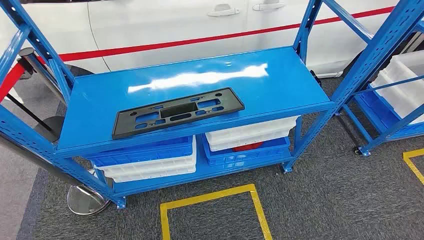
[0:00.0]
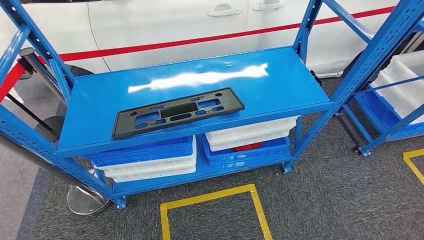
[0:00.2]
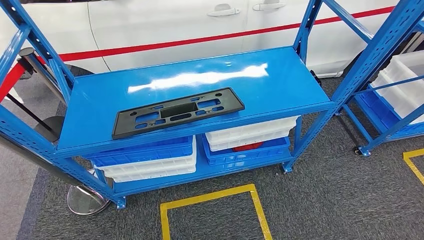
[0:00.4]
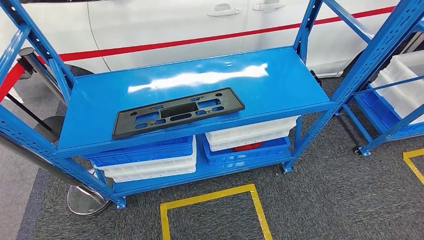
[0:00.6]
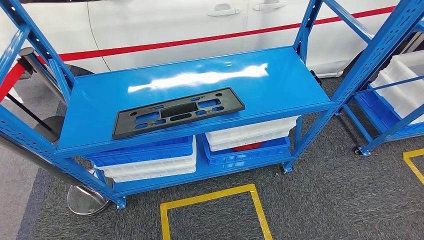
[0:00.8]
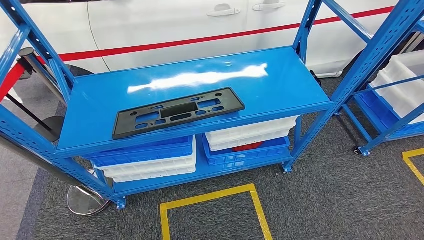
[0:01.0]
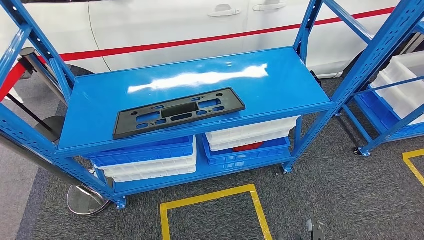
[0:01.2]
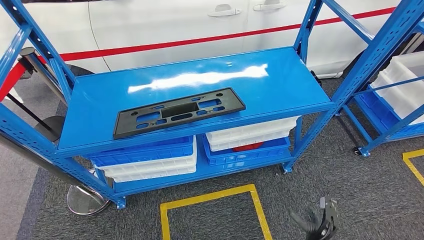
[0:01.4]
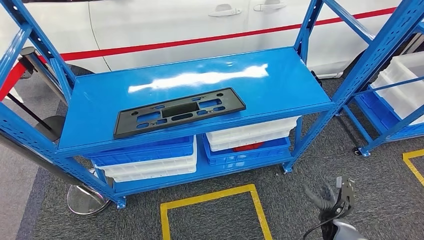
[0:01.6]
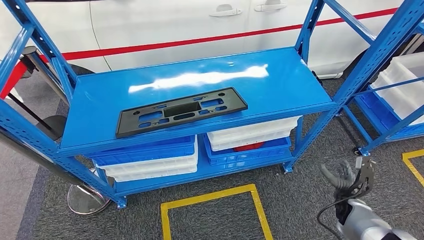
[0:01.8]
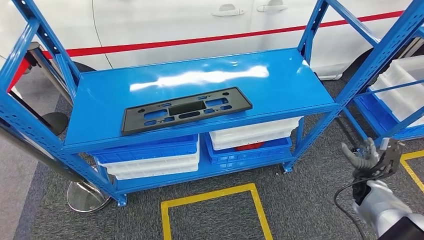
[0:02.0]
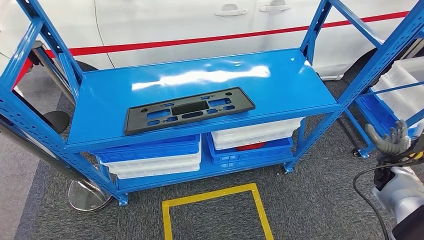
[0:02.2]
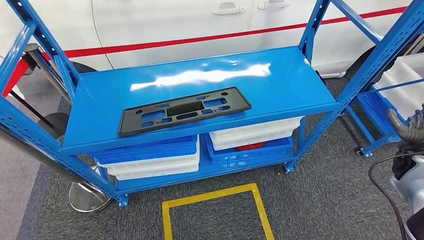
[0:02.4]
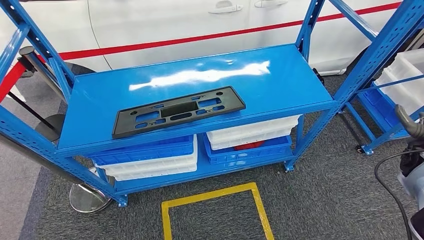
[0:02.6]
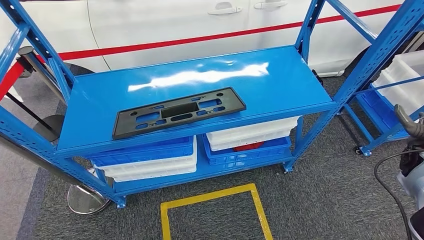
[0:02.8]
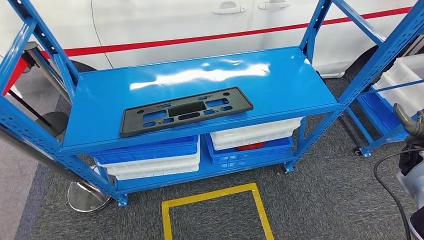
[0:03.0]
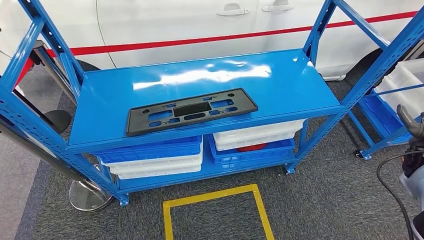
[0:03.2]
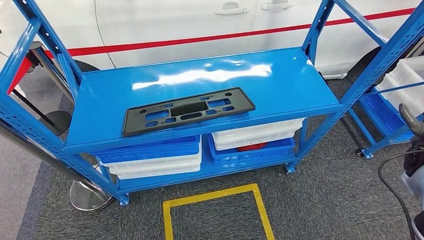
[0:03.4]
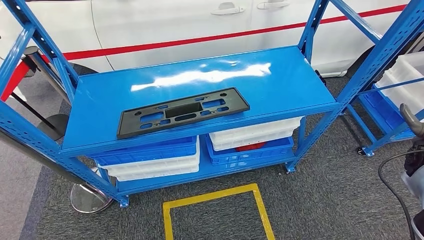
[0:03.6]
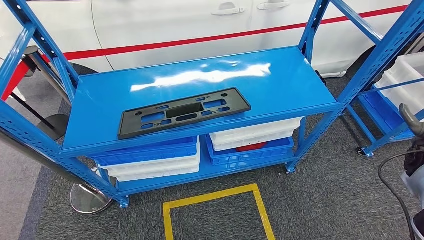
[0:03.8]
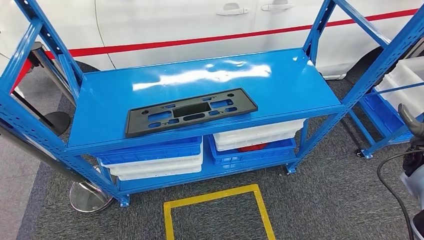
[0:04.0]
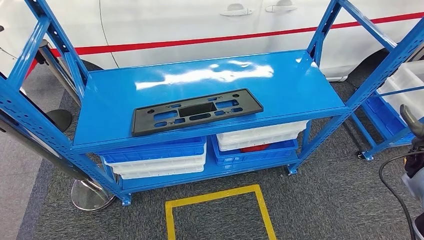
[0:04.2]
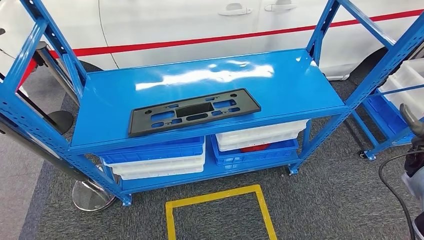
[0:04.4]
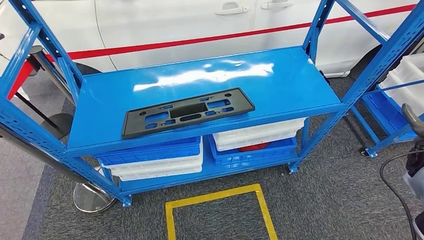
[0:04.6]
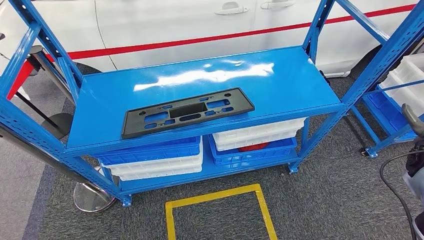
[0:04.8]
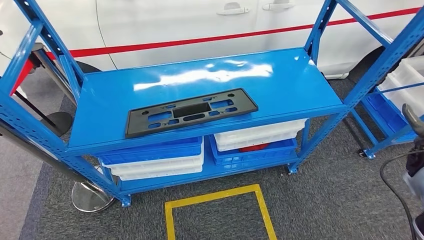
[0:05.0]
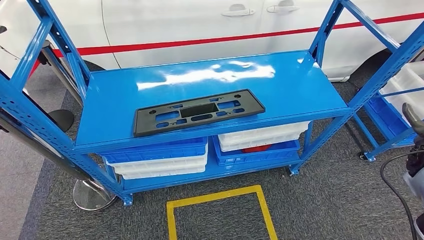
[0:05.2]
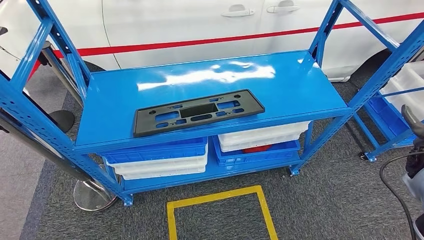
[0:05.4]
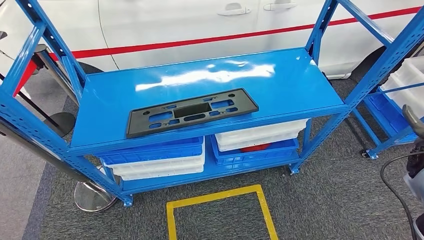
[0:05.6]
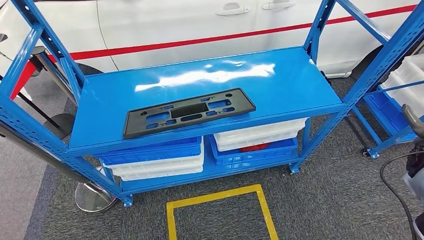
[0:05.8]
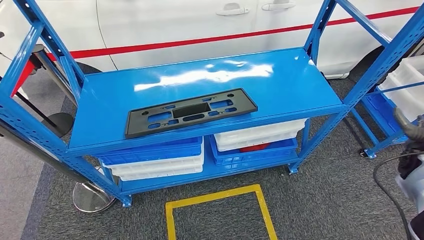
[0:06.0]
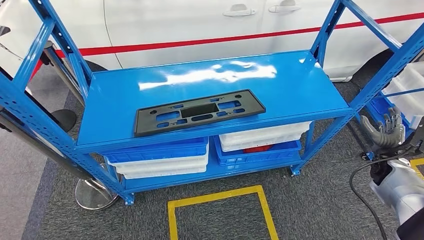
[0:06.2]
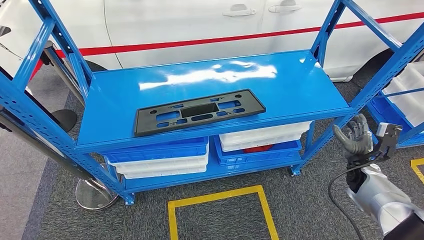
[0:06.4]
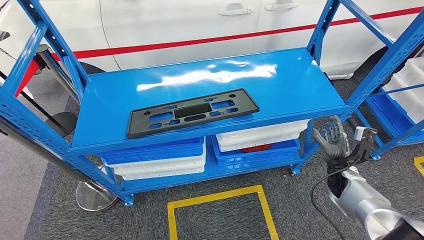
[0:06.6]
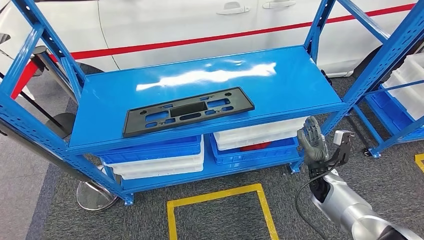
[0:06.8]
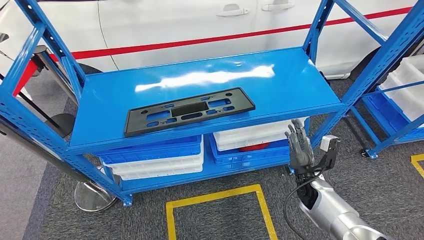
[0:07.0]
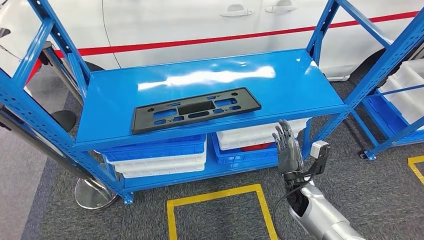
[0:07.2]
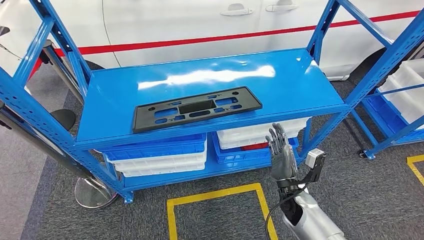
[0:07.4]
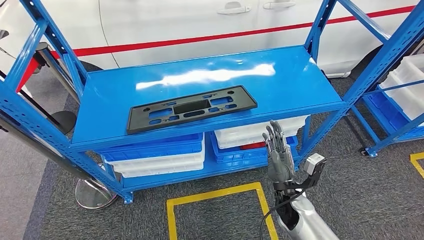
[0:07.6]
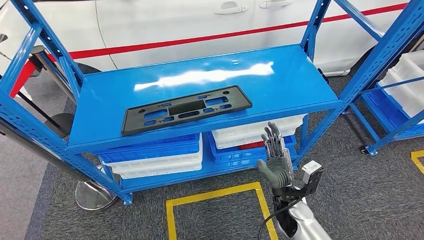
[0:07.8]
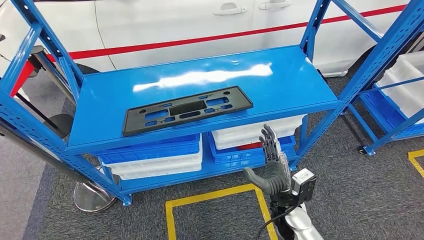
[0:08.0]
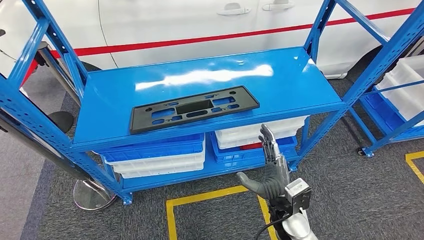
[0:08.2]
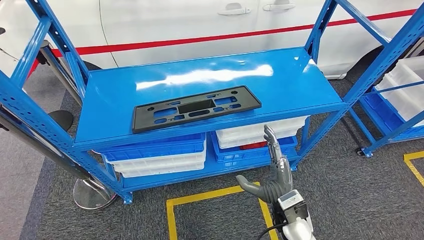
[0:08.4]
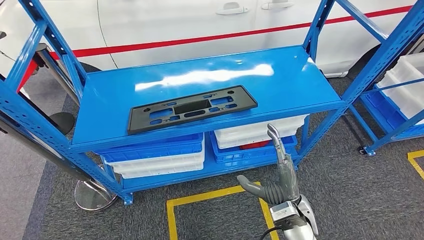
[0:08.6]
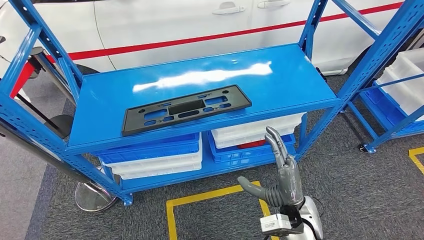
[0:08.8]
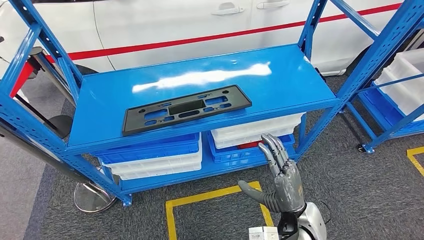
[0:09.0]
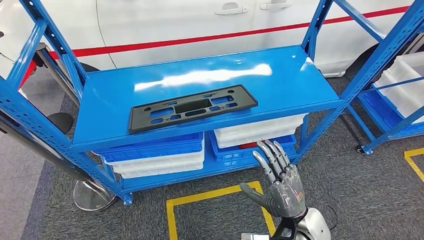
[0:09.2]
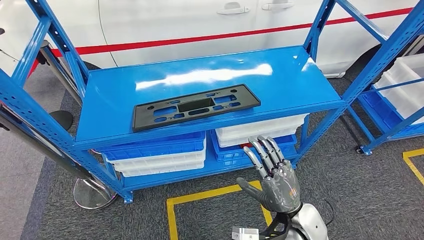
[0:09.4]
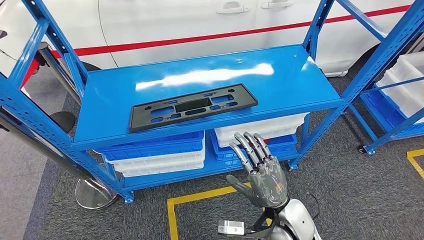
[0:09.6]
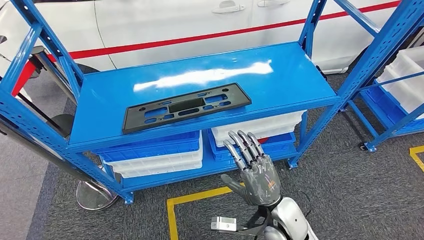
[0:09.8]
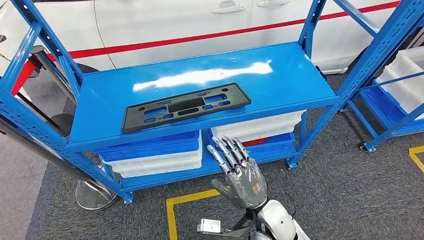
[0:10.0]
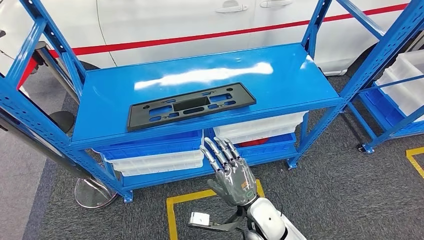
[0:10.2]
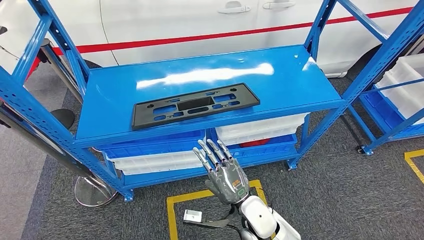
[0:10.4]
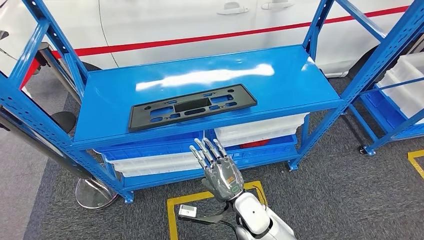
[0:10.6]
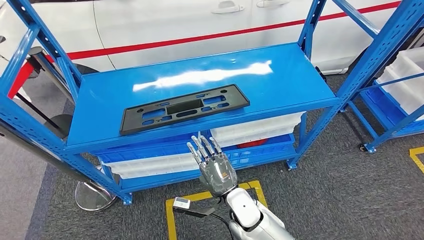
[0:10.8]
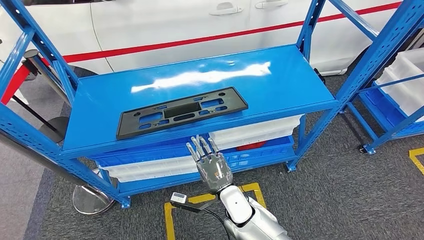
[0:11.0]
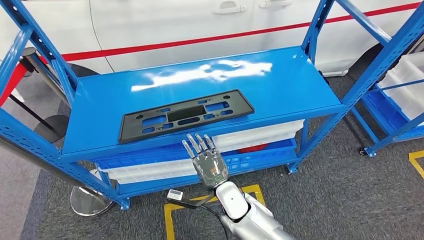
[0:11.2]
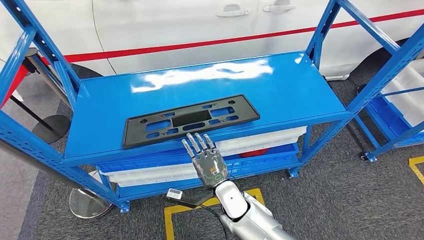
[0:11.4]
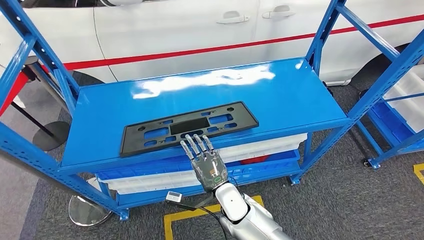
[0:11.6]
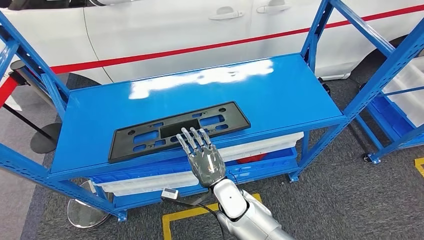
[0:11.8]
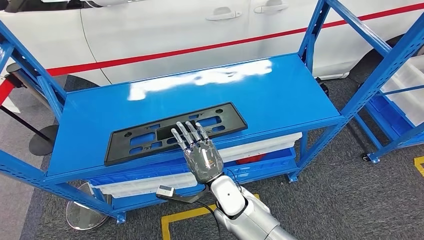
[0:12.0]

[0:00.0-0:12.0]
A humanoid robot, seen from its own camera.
0:04.4 to 0:06.0: The hands move only a little.

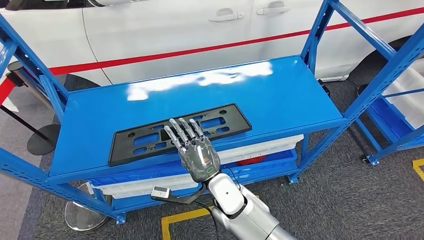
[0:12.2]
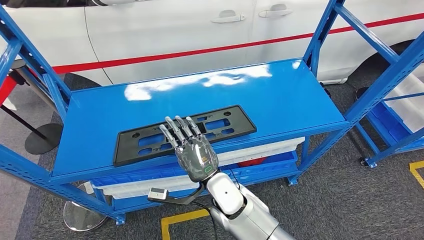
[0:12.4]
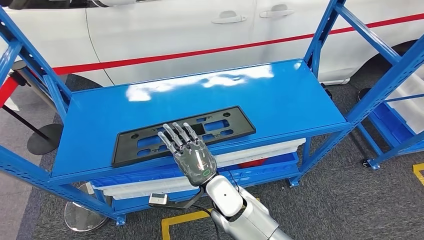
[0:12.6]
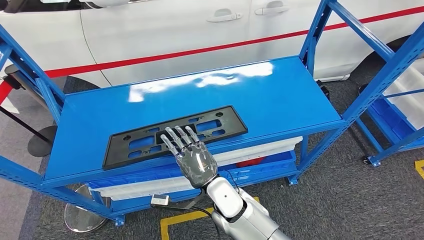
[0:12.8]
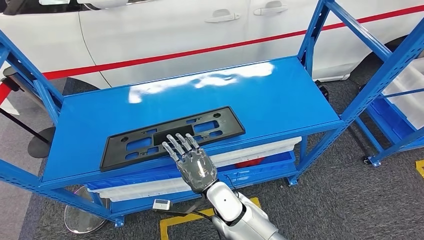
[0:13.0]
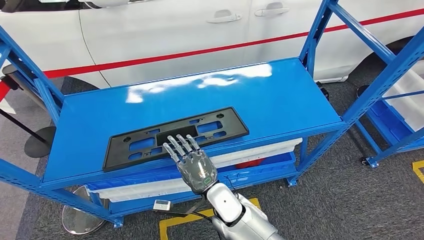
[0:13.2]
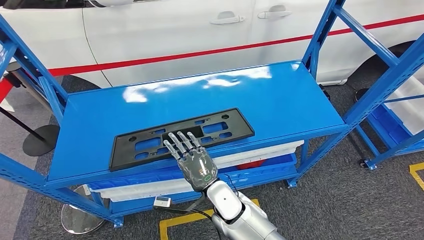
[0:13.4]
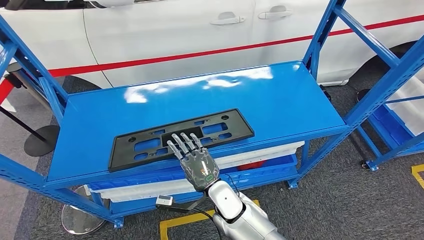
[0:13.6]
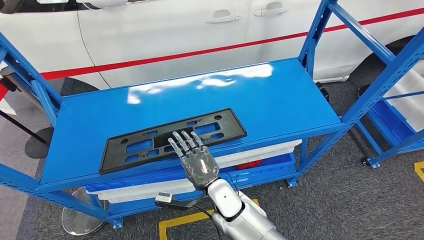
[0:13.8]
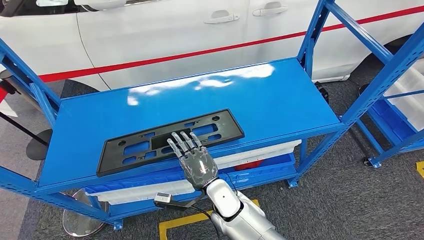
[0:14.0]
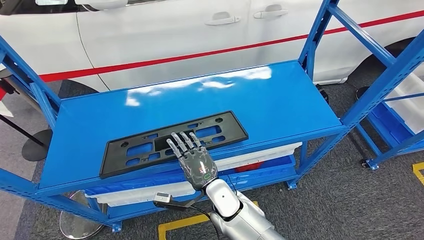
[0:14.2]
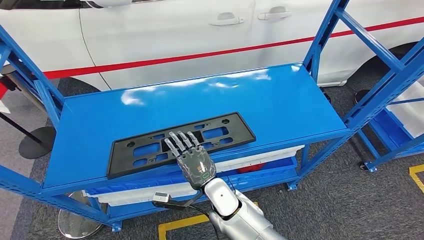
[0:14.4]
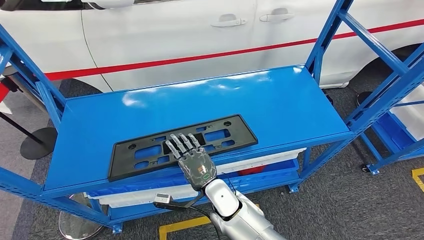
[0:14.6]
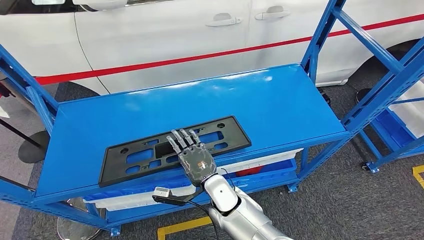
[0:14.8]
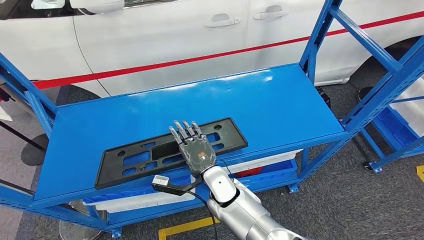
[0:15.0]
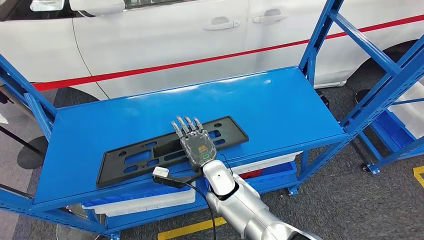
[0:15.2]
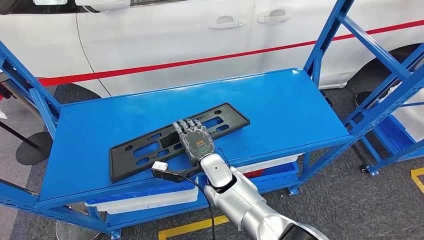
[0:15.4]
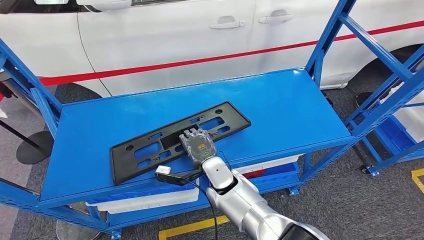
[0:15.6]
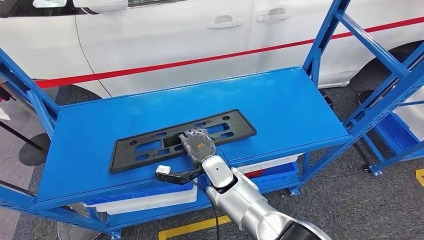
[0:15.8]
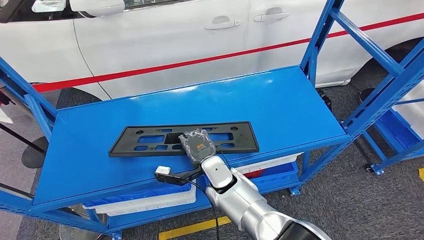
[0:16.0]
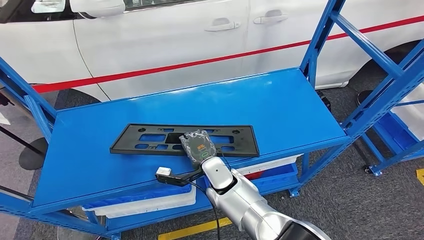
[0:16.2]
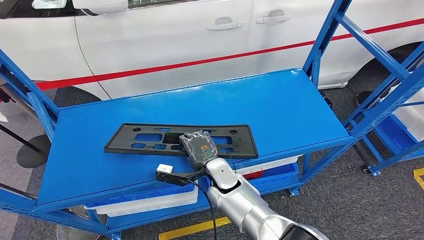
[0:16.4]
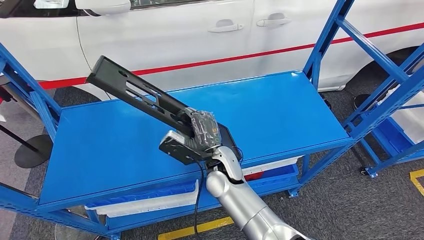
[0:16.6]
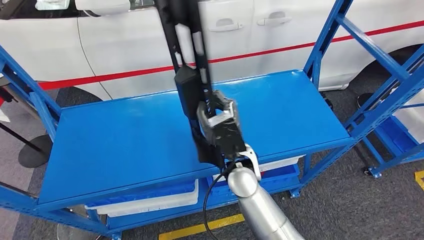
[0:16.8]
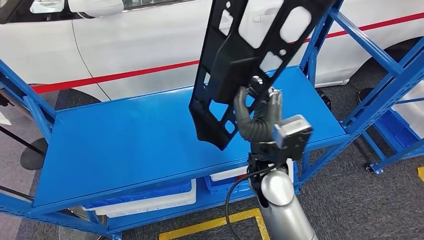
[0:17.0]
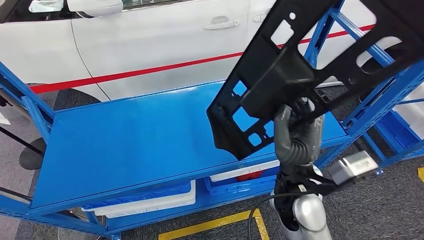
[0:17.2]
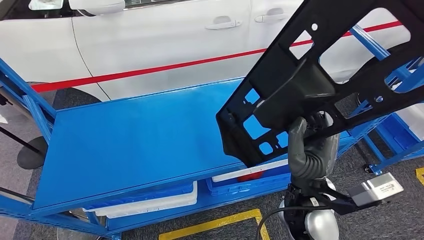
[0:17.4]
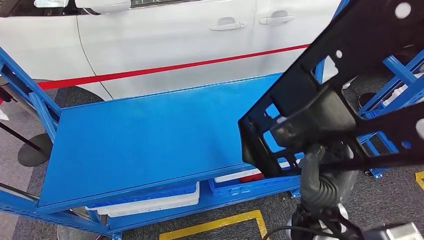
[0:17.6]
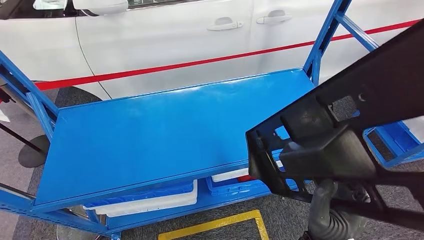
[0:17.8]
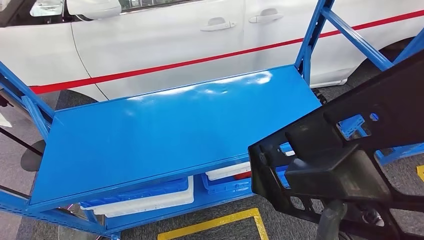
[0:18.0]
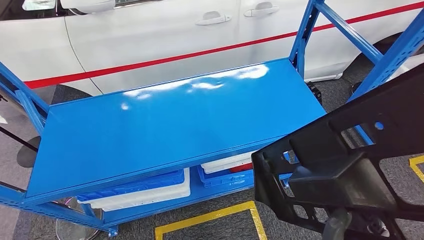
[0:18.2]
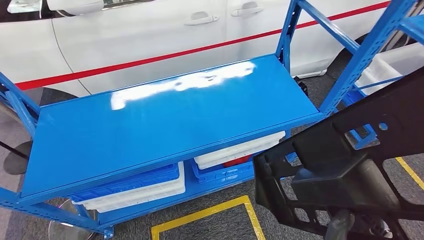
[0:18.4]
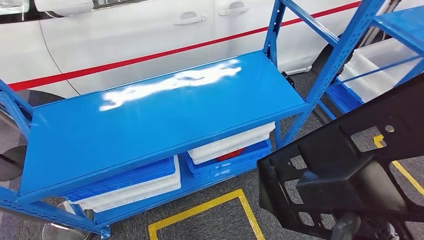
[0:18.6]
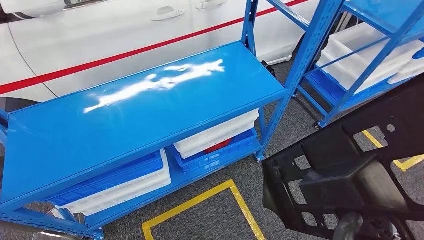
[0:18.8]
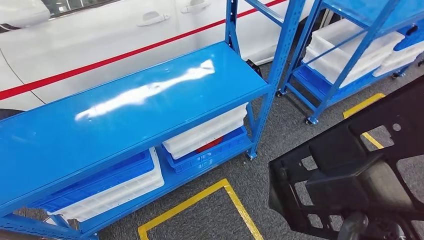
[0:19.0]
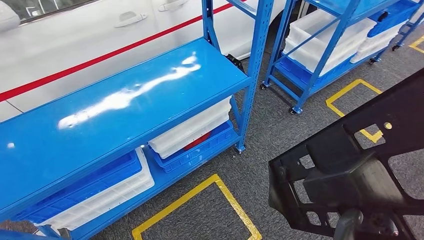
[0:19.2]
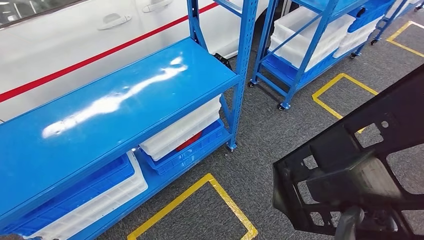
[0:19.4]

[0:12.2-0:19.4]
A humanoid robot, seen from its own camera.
Step, 0:12.2 to 0:17.8: Pick up the large material from the shelf.
